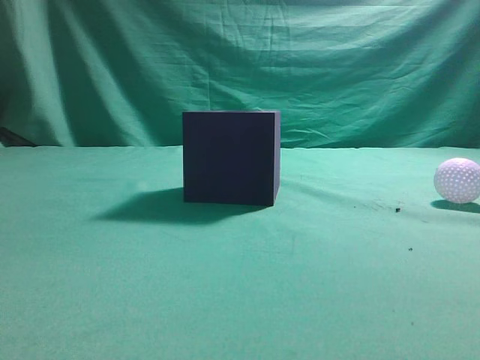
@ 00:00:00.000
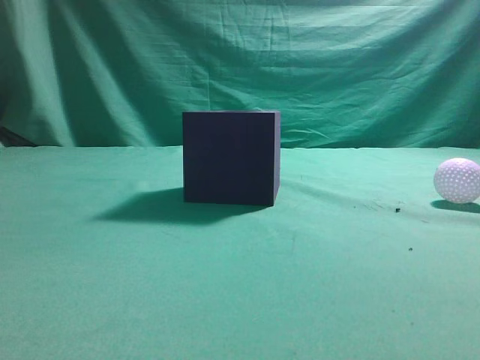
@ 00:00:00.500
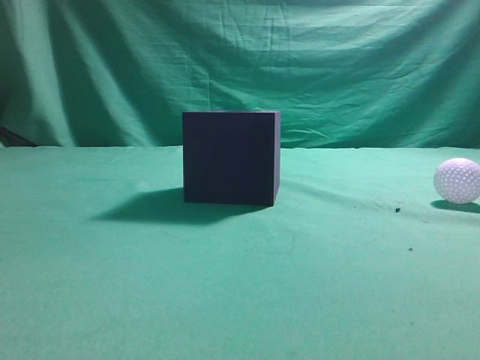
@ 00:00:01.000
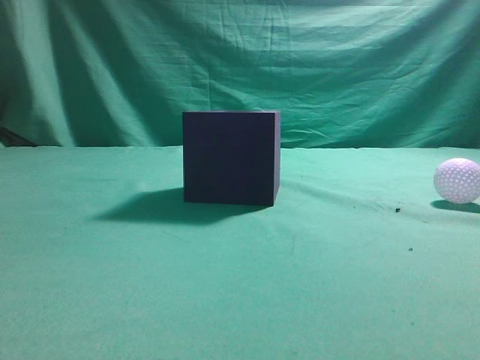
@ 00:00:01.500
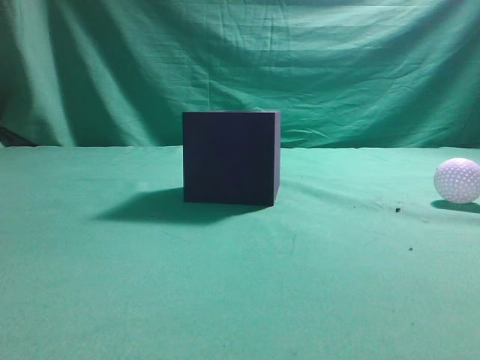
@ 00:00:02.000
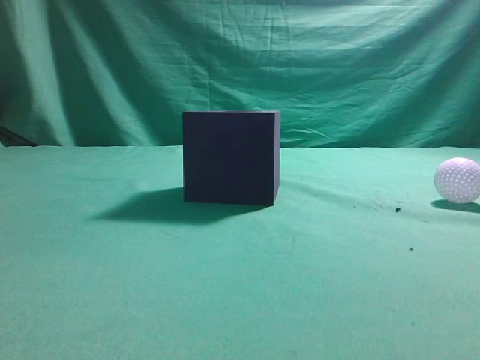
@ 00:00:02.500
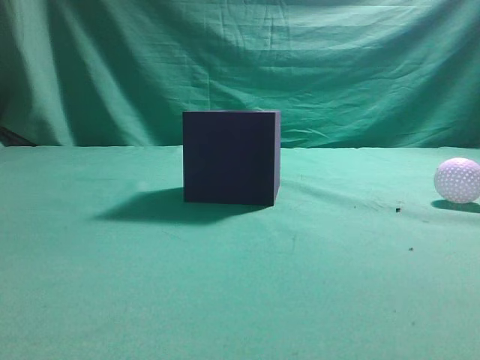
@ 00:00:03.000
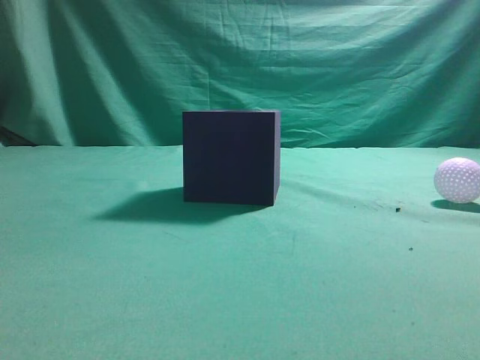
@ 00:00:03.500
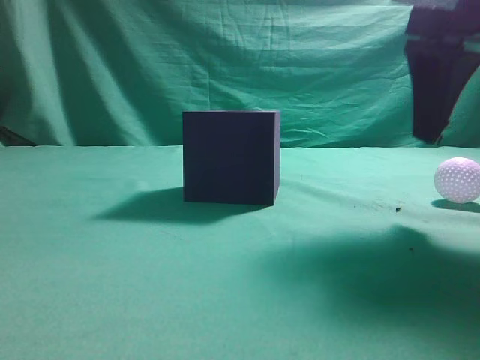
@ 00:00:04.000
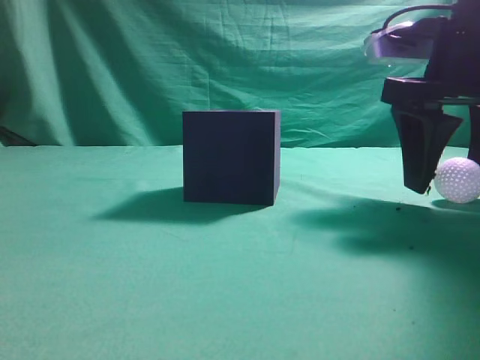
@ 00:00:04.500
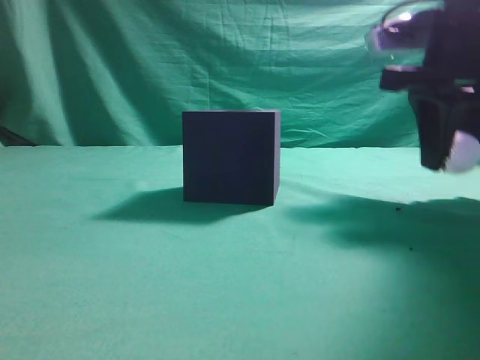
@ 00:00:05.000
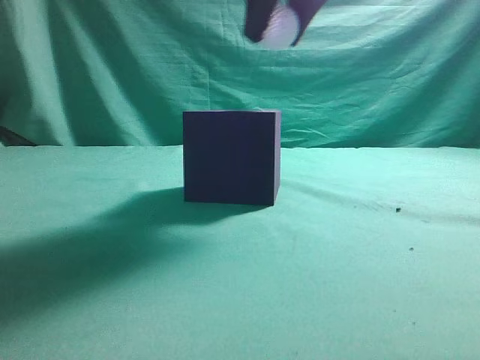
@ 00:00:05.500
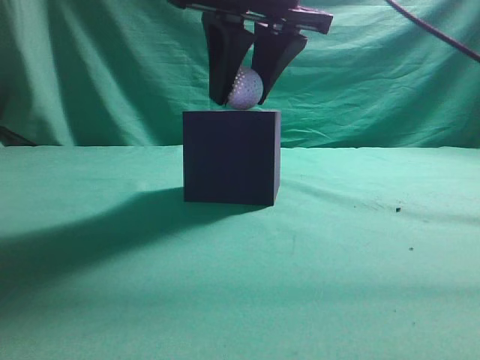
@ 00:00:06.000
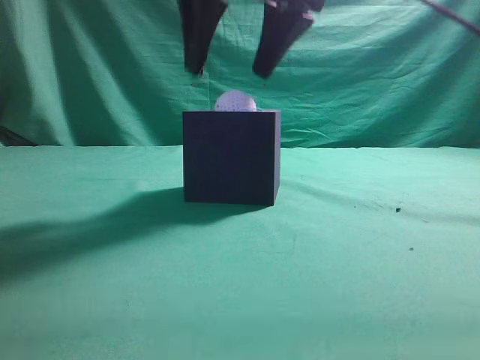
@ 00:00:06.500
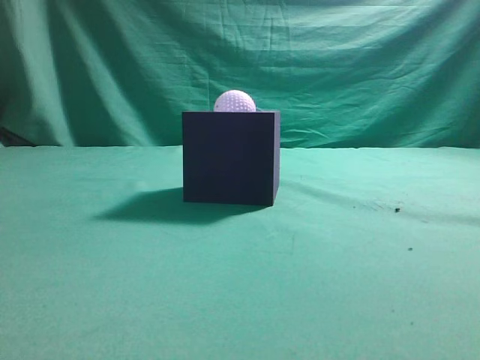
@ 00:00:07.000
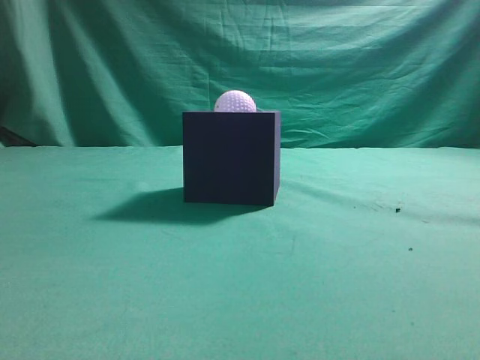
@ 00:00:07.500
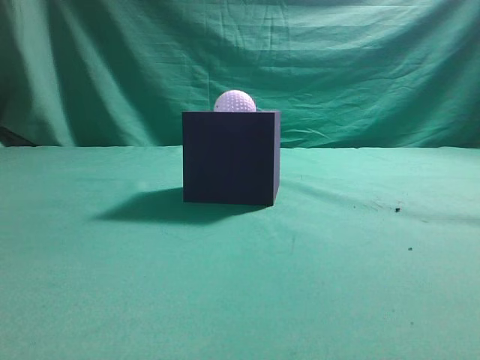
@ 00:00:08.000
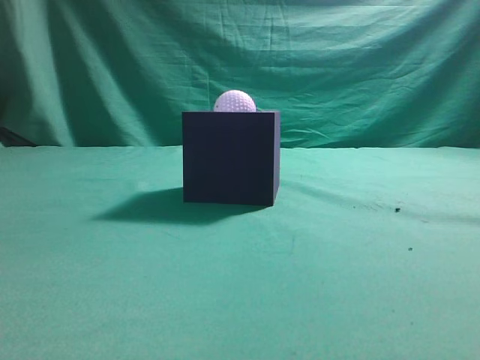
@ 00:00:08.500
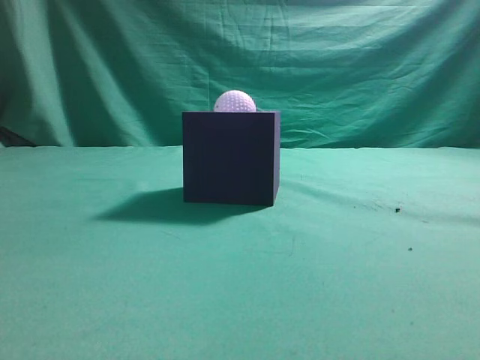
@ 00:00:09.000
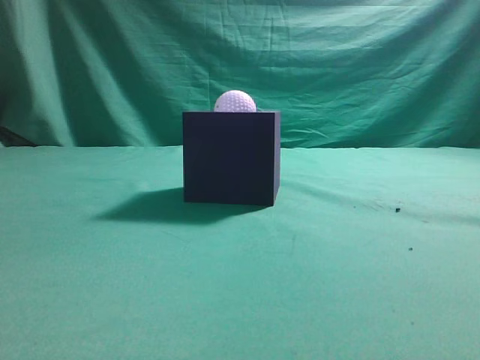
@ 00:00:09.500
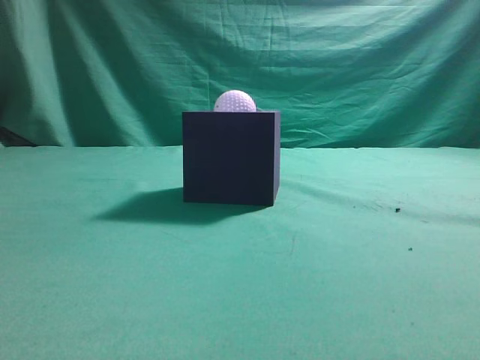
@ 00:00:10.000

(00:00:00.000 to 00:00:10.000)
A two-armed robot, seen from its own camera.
Task of the whole recording: Pick up the ball and place it in the circular groove above the cube.
Step, 00:00:00.000 - 00:00:05.000: Grasp the sphere on the table.
Step, 00:00:05.500 - 00:00:06.500: Place the sphere into the sphere-shaped recess.
00:00:02.000 - 00:00:04.000: The right gripper goes about 20 cm forward, and opens its fingers.
00:00:04.000 - 00:00:06.000: The right gripper heads to the left, covering some 15 cm, and closes its fingers.
00:00:06.000 - 00:00:08.000: The right gripper moves backward, to the right and upward, roughly 30 cm, and closes up.
